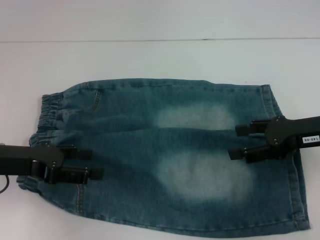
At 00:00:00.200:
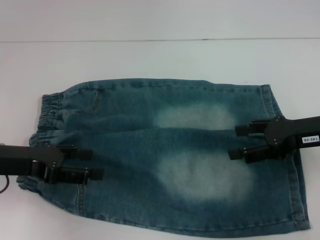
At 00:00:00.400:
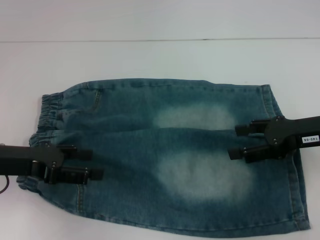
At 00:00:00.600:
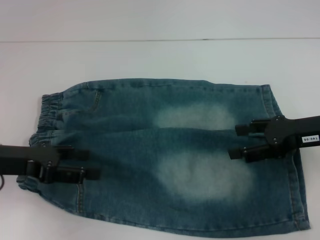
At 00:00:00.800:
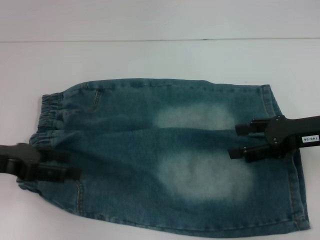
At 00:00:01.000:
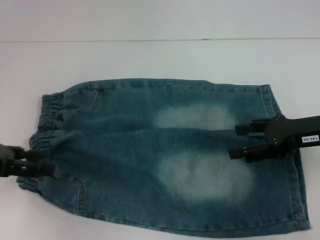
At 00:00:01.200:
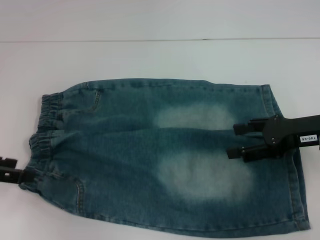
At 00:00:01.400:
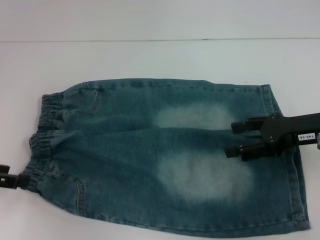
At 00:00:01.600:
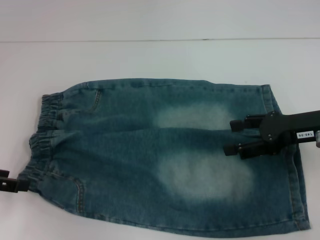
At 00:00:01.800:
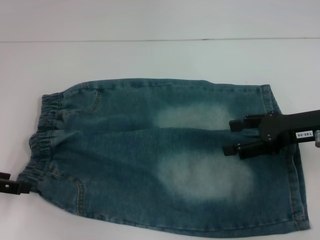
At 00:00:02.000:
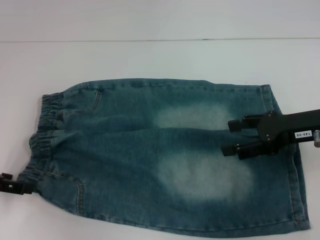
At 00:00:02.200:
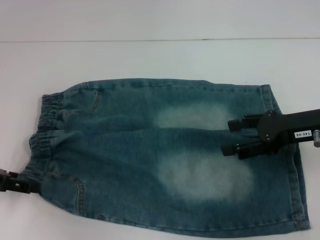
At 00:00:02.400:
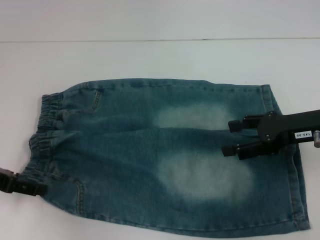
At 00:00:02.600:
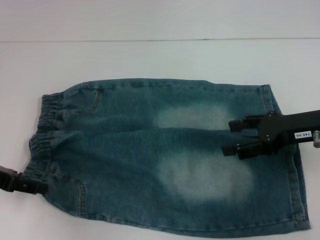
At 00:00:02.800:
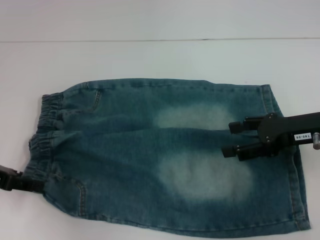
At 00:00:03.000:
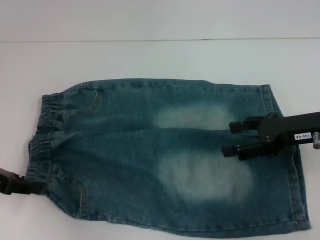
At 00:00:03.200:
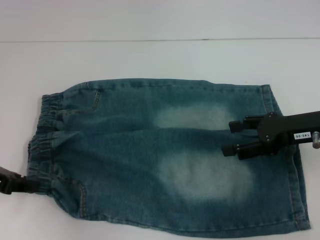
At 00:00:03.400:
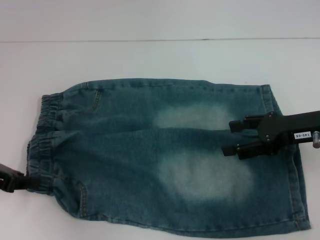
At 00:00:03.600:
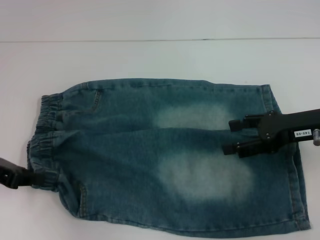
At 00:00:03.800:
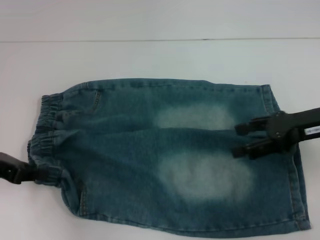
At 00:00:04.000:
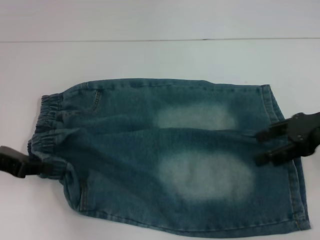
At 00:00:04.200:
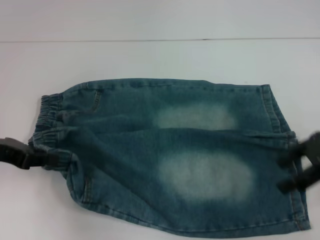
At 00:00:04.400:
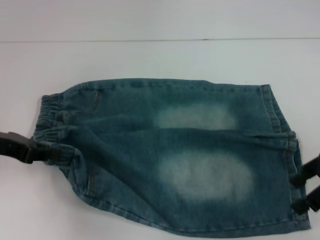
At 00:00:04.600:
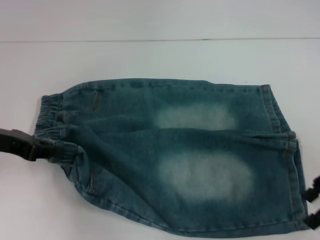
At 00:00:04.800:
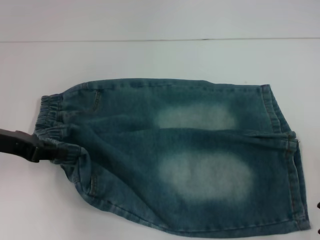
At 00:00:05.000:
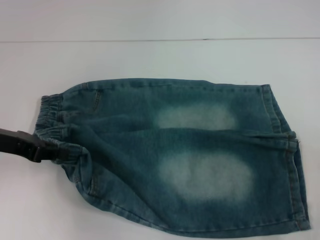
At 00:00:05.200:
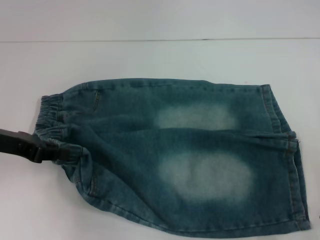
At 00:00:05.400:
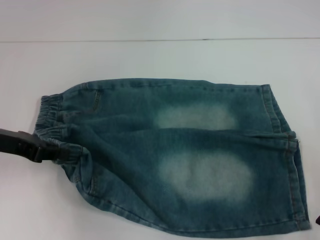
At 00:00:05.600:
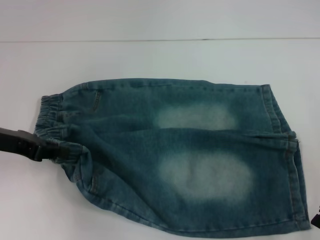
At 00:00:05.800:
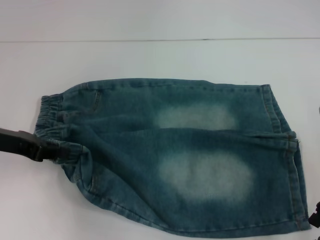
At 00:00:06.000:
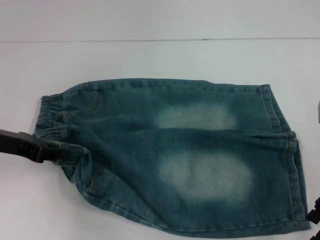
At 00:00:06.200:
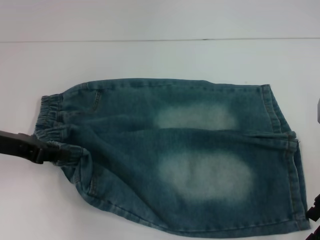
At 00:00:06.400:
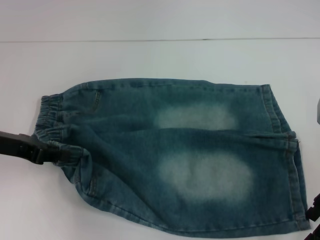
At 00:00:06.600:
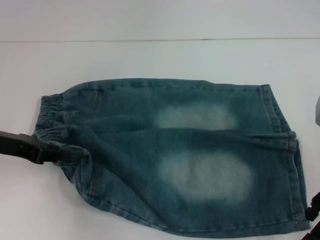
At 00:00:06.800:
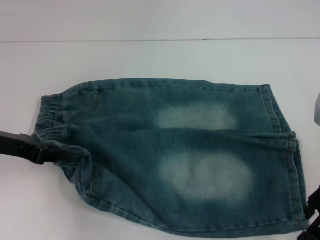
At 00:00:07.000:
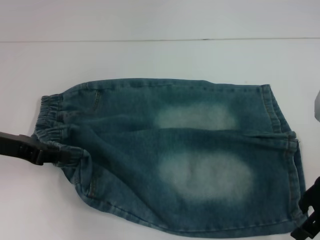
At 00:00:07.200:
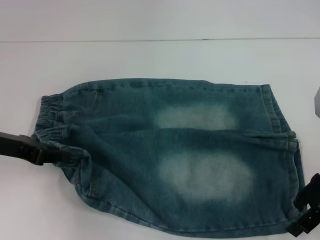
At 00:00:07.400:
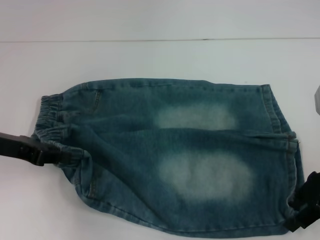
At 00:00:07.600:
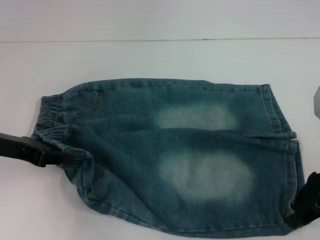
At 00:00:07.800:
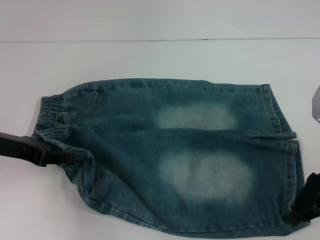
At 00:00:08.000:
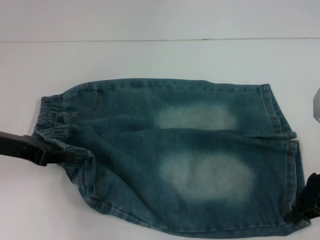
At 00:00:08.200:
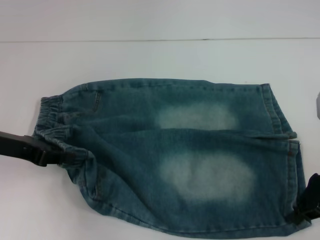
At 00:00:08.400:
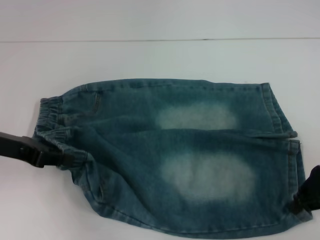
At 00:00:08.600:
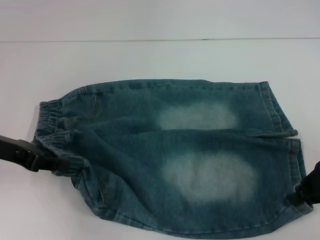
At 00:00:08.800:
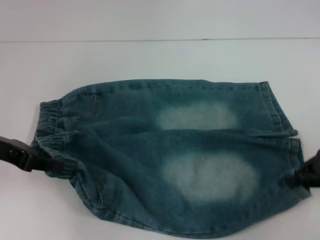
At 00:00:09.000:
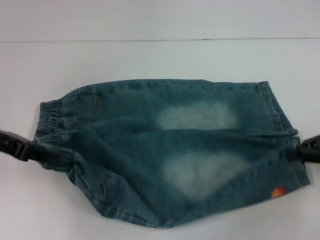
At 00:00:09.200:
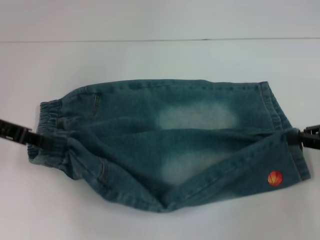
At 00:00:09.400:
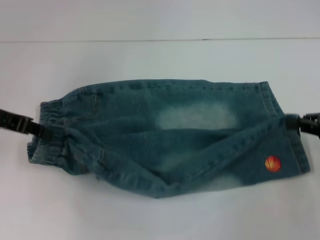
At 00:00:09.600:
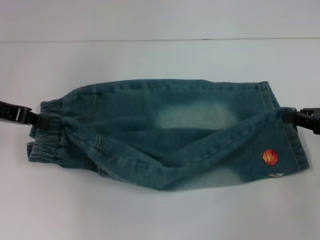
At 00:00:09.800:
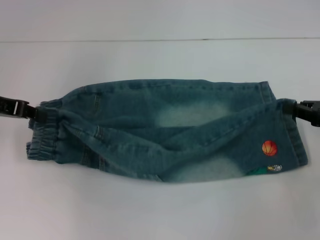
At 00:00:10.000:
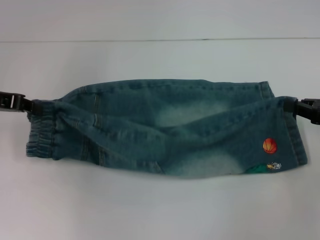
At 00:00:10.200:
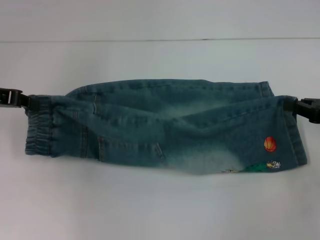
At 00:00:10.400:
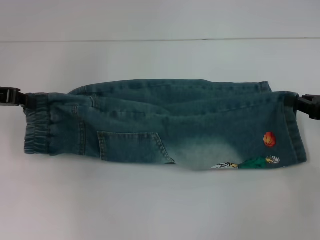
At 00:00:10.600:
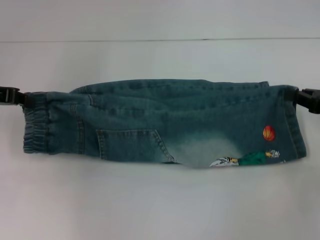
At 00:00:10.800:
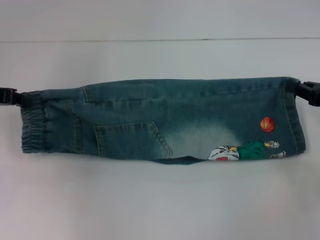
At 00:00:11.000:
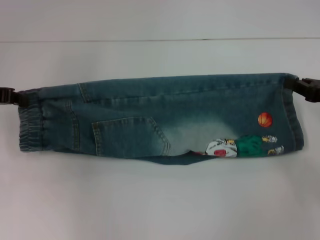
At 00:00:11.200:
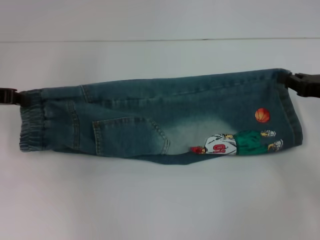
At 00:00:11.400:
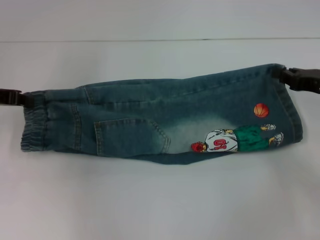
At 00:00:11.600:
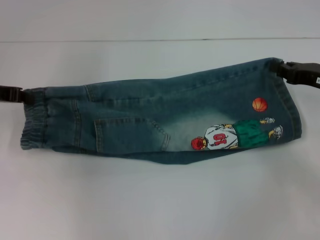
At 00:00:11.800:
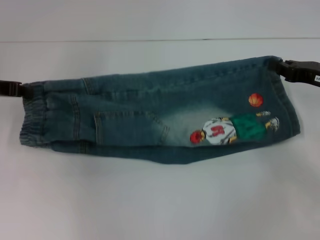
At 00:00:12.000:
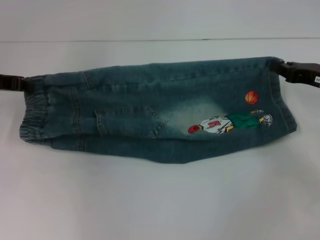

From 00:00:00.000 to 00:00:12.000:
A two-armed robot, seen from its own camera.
Step, from 00:00:00.000 to 00:00:03.400: Hold the lower left waistband with your left hand.
Step, from 00:00:03.600 to 00:00:08.000: Grab the lower right pant leg with your right hand.
From 00:00:00.000 to 00:00:01.600: The left gripper goes approximately 5 cm to the left.
From 00:00:01.600 to 00:00:03.000: The left gripper closes its fingers.
From 00:00:03.000 to 00:00:04.400: The left gripper closes. The right gripper ends up approximately 5 cm from where it was.
From 00:00:04.400 to 00:00:06.000: There are only small adjustments of the grippers.
From 00:00:06.000 to 00:00:07.600: The right gripper closes.
From 00:00:07.600 to 00:00:09.000: The right gripper heads to the right, covering about 5 cm, and closes up.
From 00:00:10.400 to 00:00:12.000: The right gripper moves about 5 cm.

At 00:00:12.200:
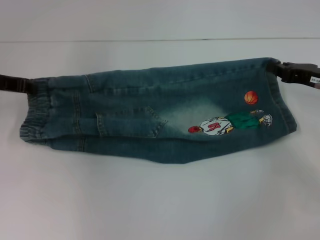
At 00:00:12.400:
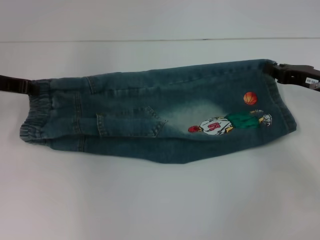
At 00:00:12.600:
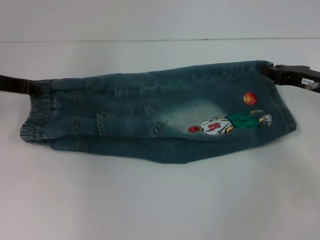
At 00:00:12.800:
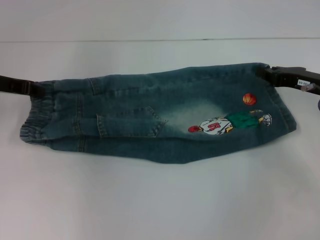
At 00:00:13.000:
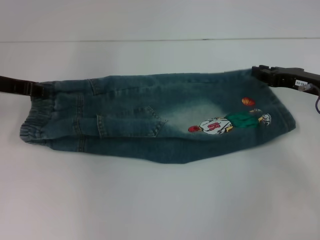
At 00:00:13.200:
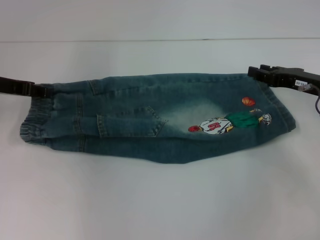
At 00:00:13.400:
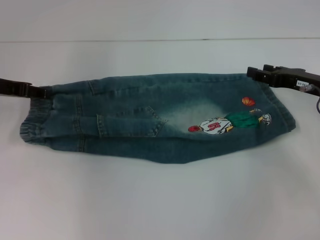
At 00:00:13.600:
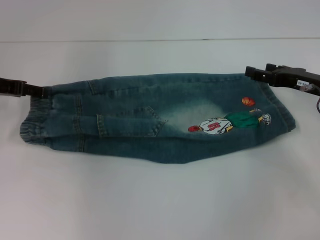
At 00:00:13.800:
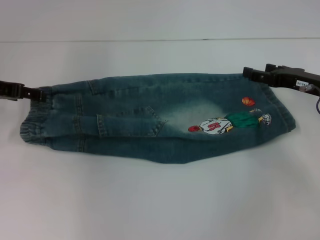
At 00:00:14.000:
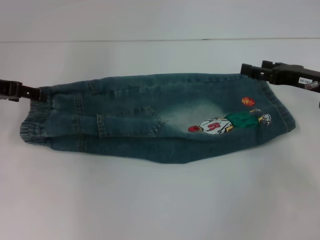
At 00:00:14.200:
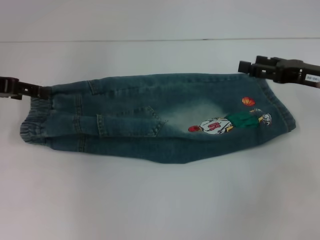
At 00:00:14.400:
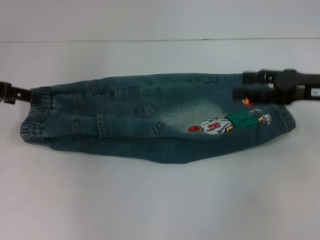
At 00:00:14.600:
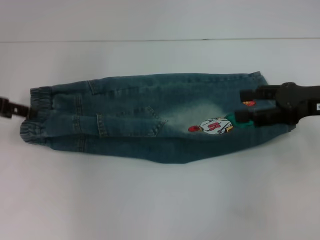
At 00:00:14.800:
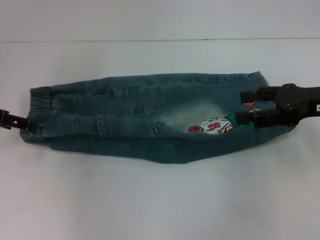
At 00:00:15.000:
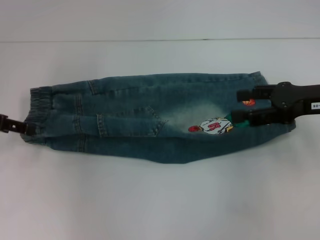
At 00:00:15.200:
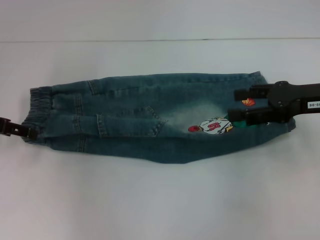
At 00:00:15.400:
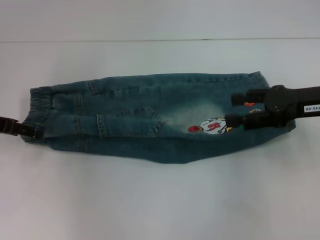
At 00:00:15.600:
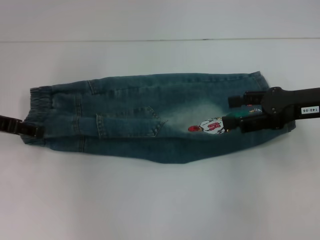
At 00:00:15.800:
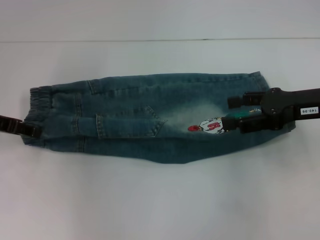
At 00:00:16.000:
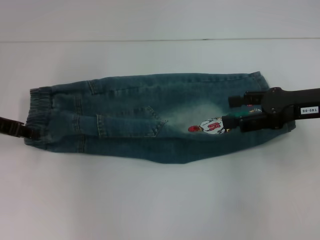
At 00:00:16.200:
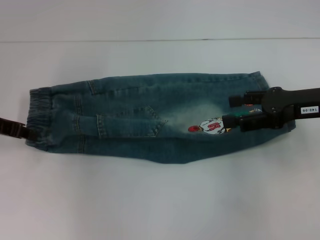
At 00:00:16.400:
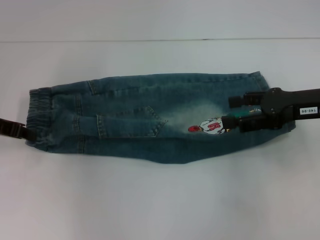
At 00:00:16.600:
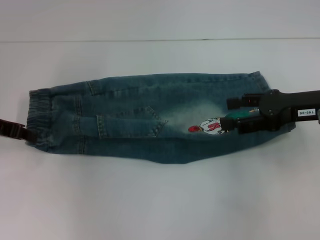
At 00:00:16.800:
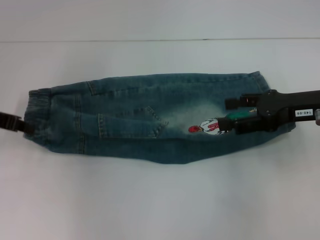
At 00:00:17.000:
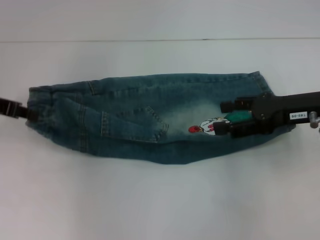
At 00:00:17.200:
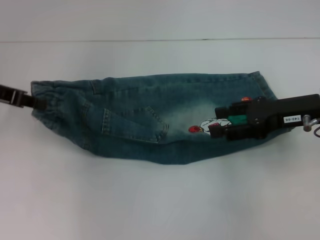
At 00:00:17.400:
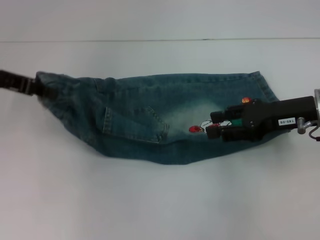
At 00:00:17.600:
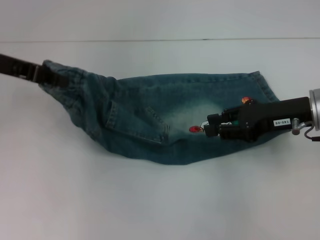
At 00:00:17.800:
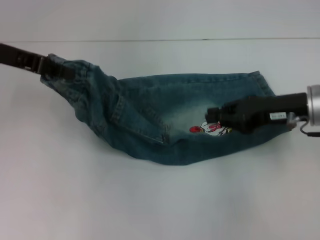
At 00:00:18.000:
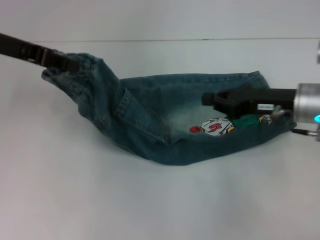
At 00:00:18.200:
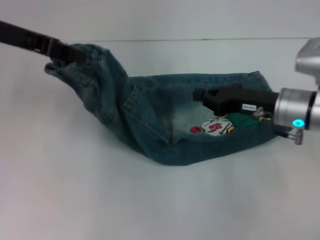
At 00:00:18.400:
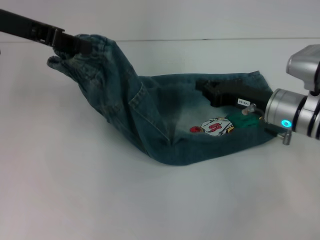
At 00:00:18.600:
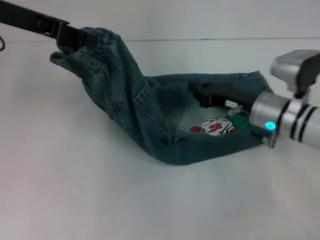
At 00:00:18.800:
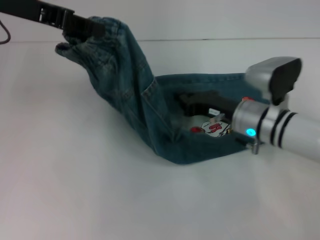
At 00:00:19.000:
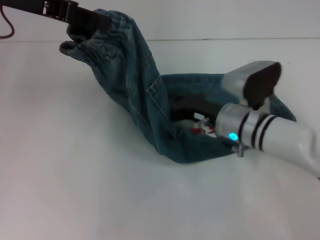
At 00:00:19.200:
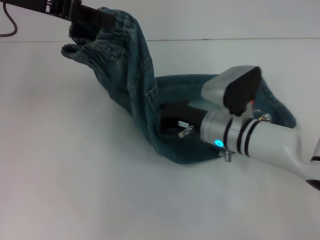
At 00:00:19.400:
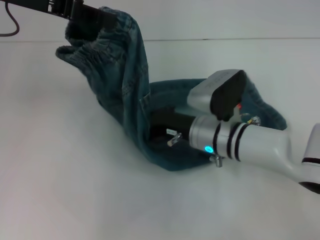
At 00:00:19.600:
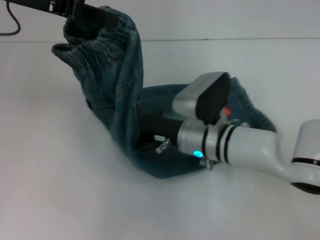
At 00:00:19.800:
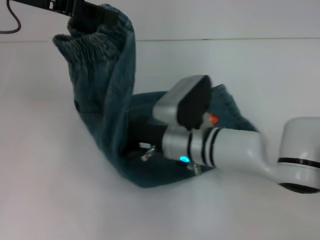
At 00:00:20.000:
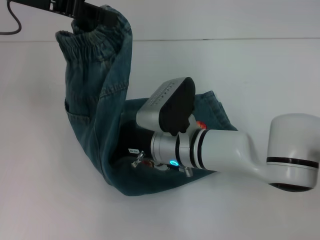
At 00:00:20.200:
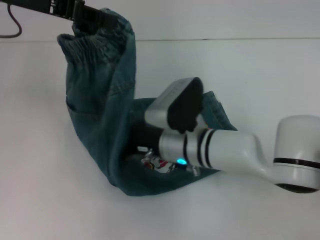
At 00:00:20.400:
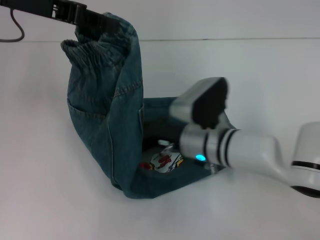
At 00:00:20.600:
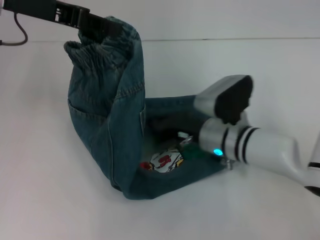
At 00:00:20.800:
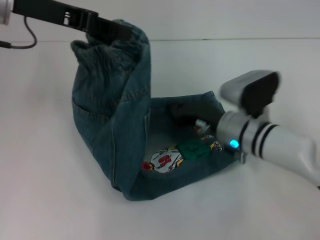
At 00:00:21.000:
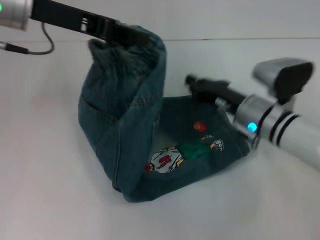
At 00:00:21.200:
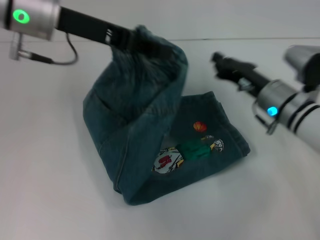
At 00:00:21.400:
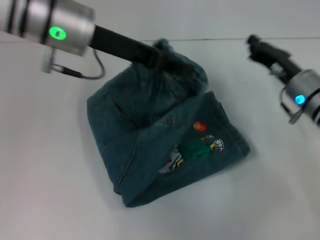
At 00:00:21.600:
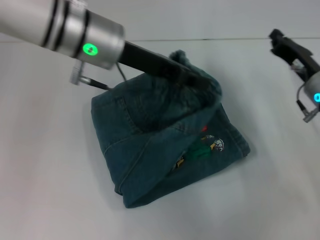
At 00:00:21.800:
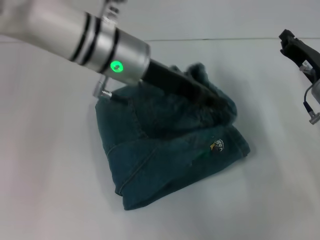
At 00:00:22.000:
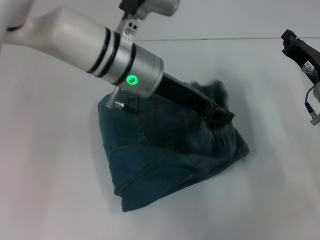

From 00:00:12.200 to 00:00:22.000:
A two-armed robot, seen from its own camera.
Step, from 00:00:13.200 to 00:00:16.600: Hold the waistband with your left hand.
Step, from 00:00:17.000 to 00:00:20.000: Press the middle of the pants with your right hand.
From 00:00:12.200 to 00:00:13.600: The left gripper opens up; the right gripper opens.
From 00:00:13.600 to 00:00:15.000: The right gripper moves upward, some 5 cm.
From 00:00:15.000 to 00:00:16.400: The left gripper closes its fingers.
From 00:00:16.400 to 00:00:17.800: The left gripper heads upward, covering about 10 cm; the right gripper closes its fingers.
From 00:00:17.800 to 00:00:19.200: The left gripper is displaced upward by roughly 5 cm; the right gripper moves to the left and downward, approximately 15 cm, and closes up.
From 00:00:19.200 to 00:00:20.600: The right gripper moves approximately 10 cm to the left and comes back.
From 00:00:20.600 to 00:00:22.000: The right gripper travels to the right by some 15 cm, while the left gripper moves to the right and downward, about 20 cm.
